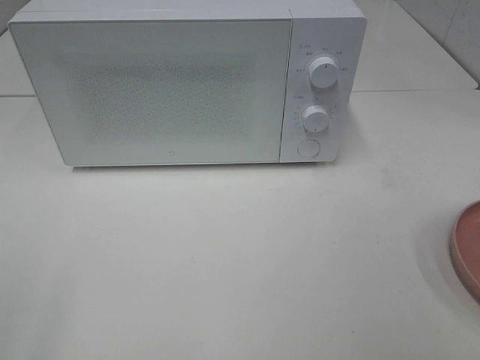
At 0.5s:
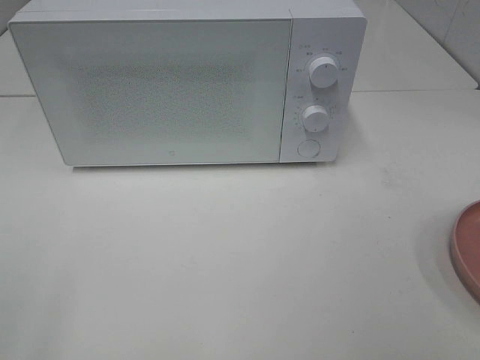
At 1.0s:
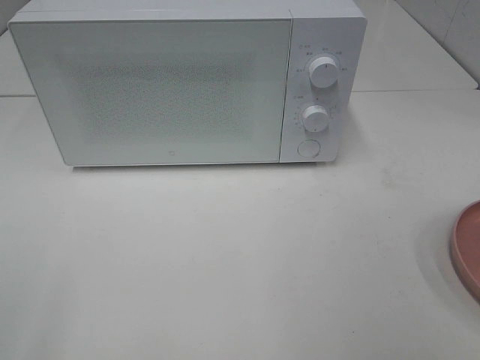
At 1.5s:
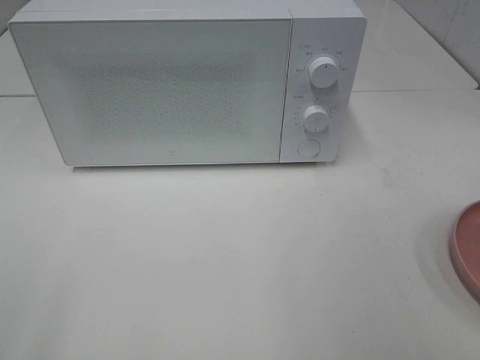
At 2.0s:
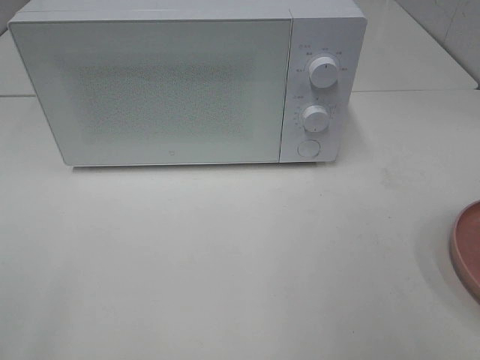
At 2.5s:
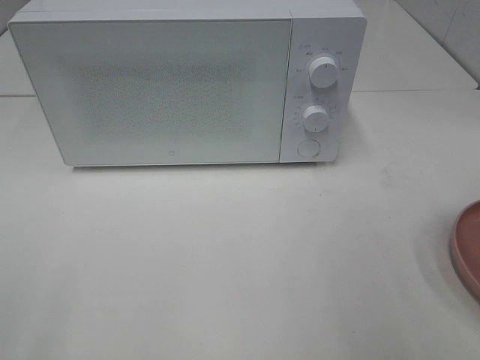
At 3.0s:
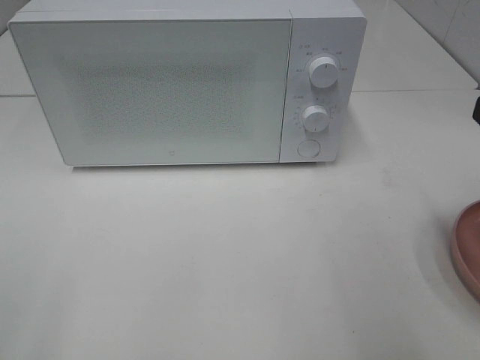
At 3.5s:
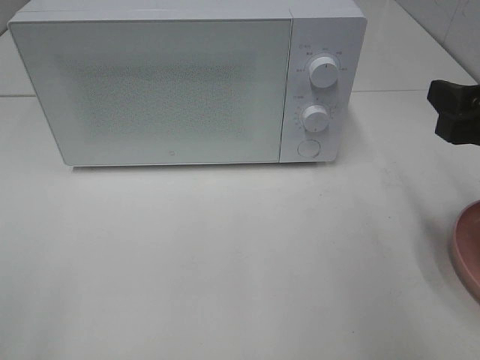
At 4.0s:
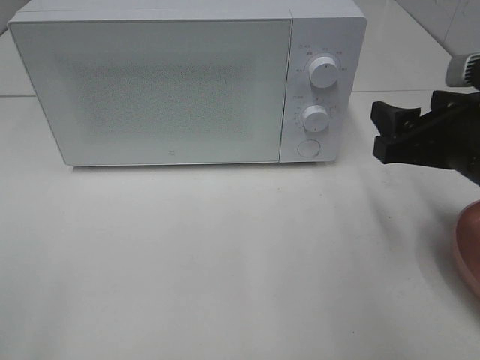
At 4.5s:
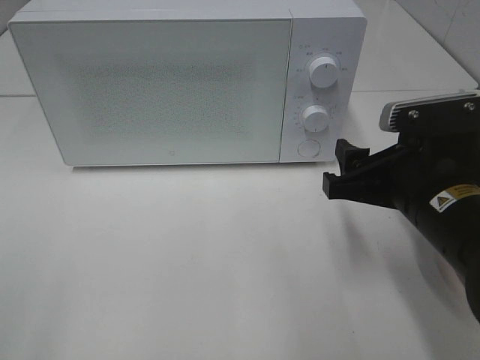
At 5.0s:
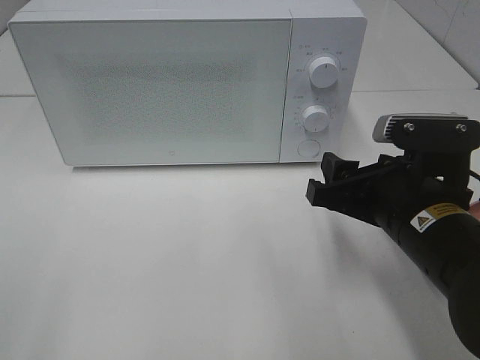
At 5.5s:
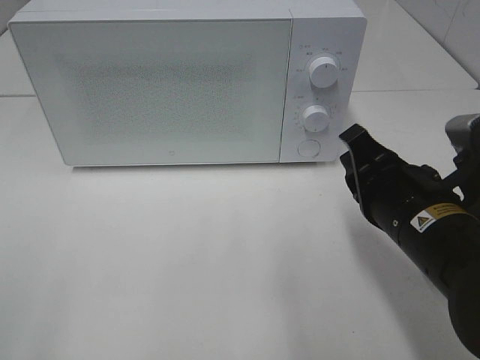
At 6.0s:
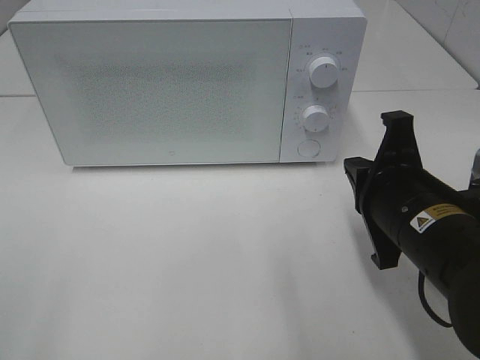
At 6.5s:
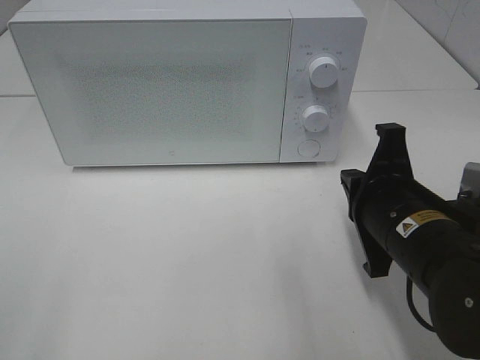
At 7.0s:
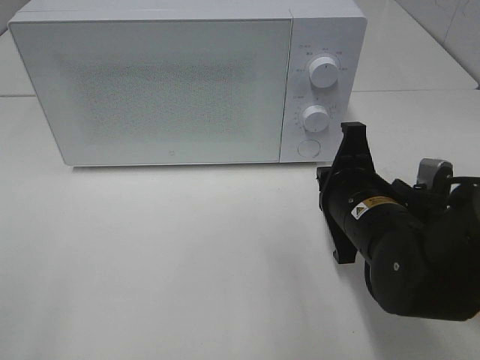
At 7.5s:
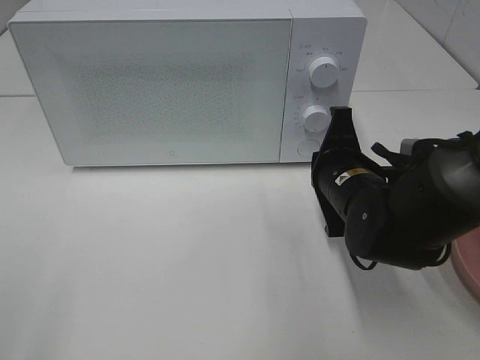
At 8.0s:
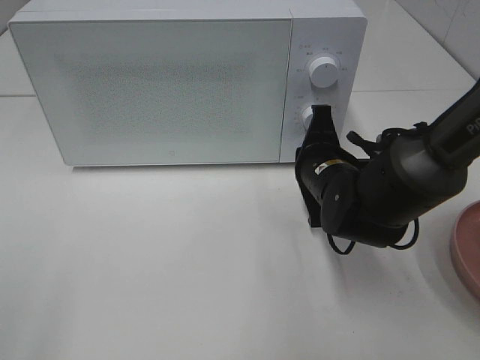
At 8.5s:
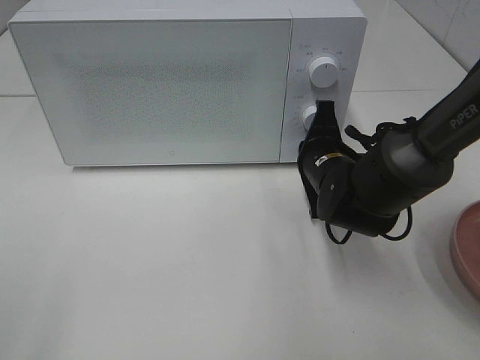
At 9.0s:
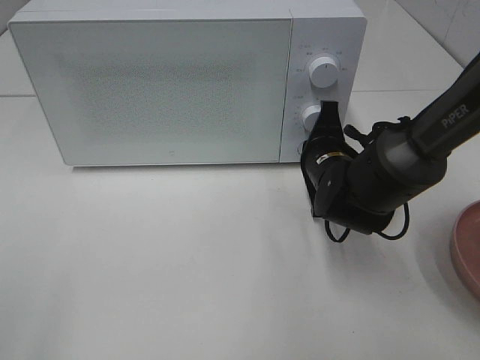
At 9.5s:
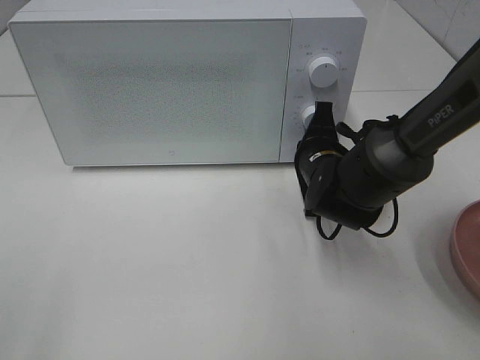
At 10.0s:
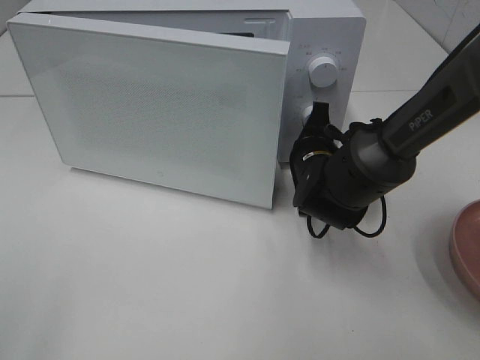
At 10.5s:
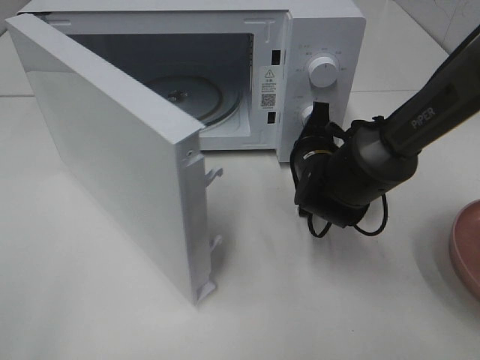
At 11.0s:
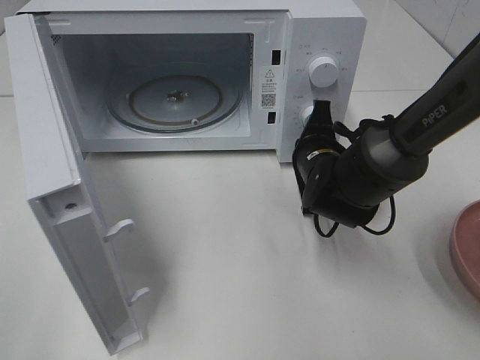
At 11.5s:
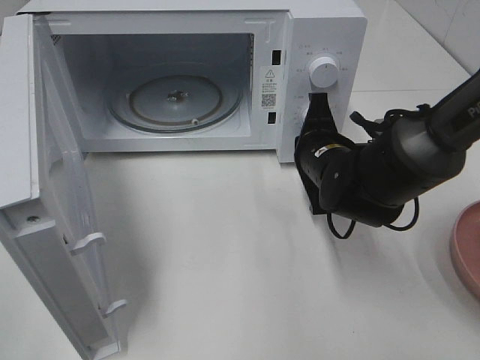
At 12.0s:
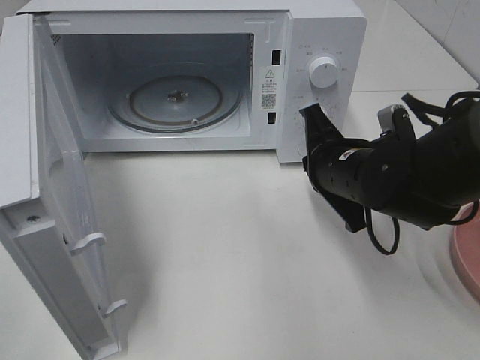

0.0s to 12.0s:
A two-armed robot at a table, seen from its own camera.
Task of the whole recording: Heat the burger.
Step, 0.0s to 11.0s: Right hand: press the switch.
2.0s to 4.0s: The right gripper shifts some 20 cm forward and downward.
4.0s to 6.0s: The right gripper is displaced to the left by roughly 5 cm, and closes up.
6.0s to 8.0s: The right gripper is displaced forward and downward by approximately 15 cm.
8.0s to 10.0s: The grippers make only small movements.
10.0s to 12.0s: The right gripper heads backward and upward, covering approximately 10 cm.

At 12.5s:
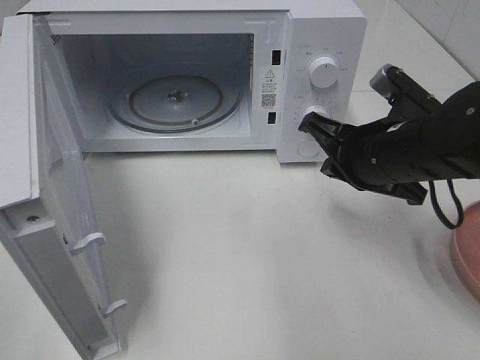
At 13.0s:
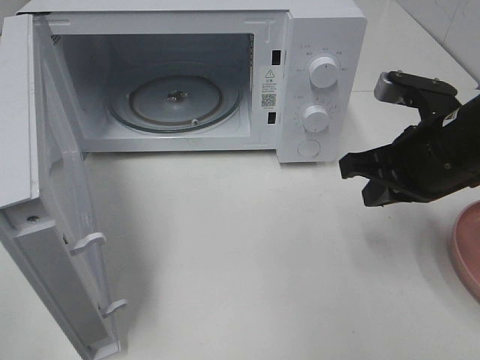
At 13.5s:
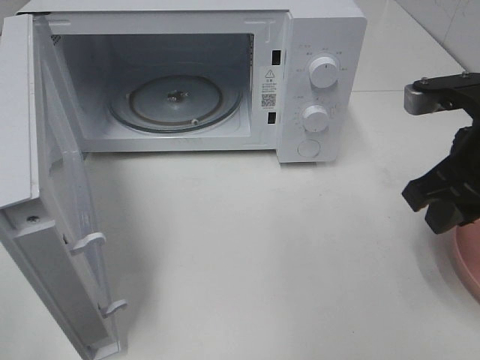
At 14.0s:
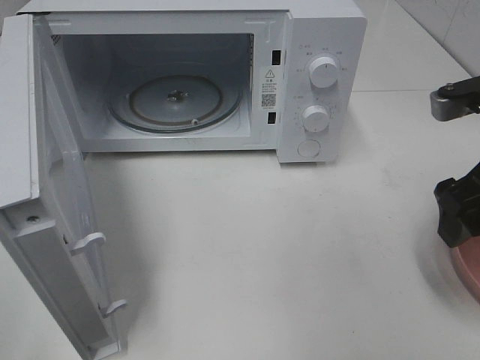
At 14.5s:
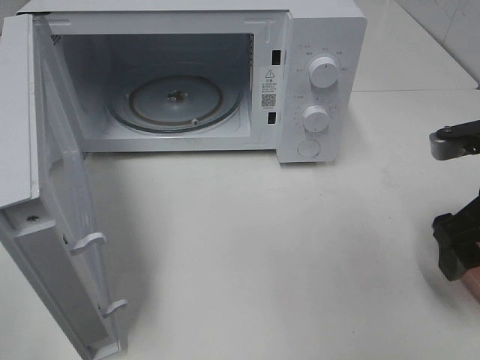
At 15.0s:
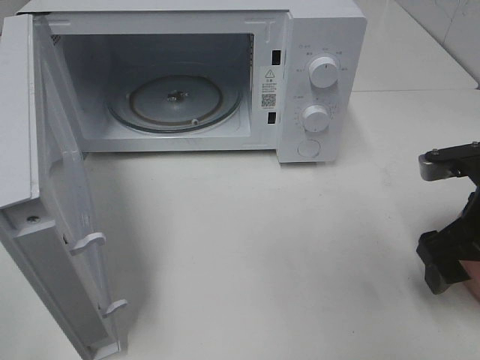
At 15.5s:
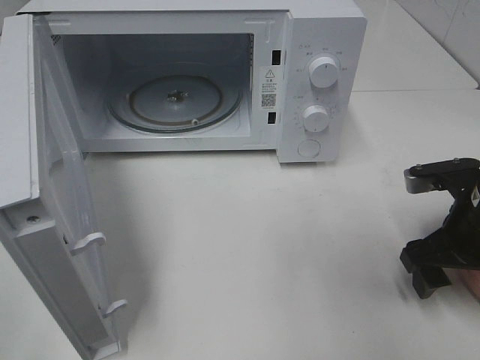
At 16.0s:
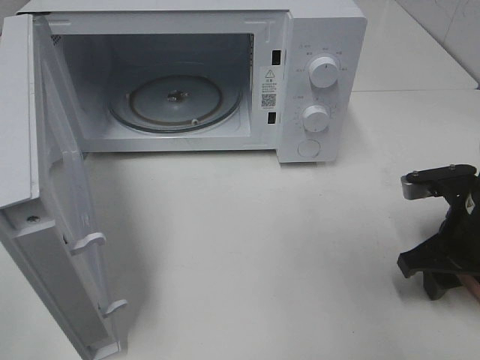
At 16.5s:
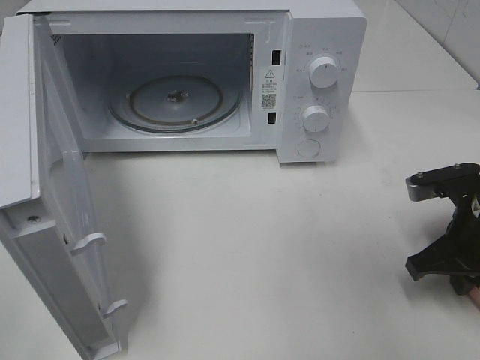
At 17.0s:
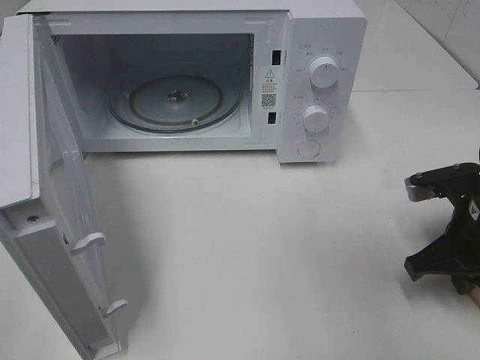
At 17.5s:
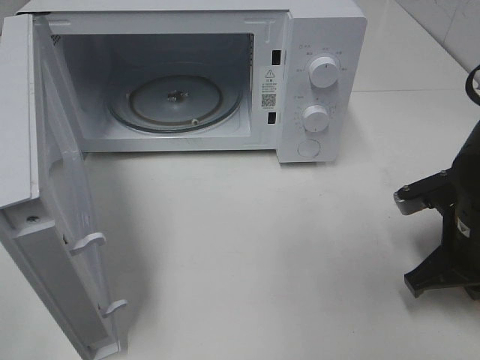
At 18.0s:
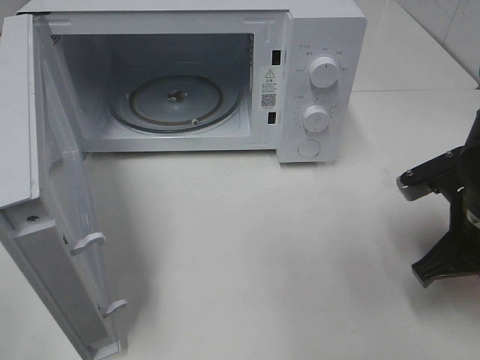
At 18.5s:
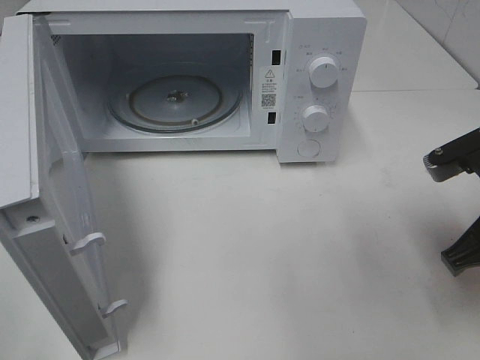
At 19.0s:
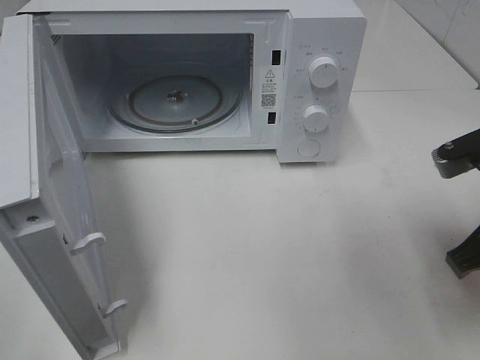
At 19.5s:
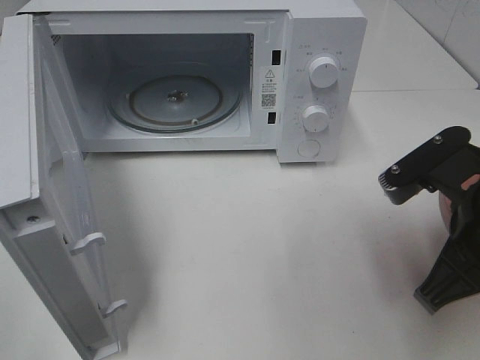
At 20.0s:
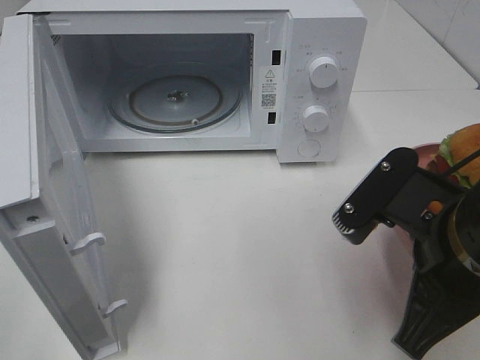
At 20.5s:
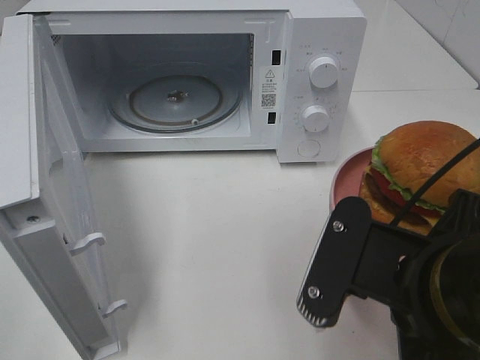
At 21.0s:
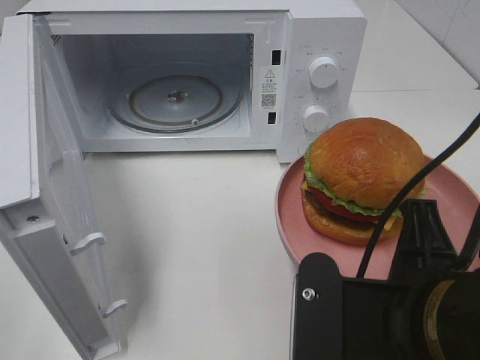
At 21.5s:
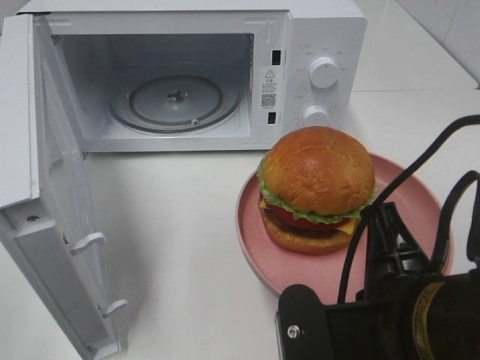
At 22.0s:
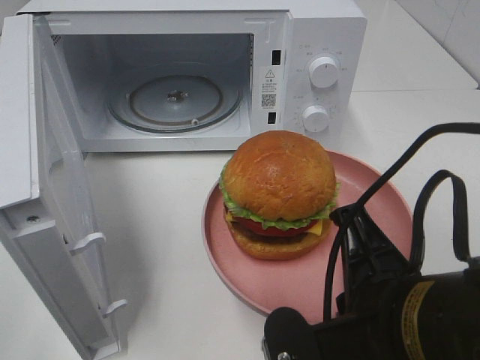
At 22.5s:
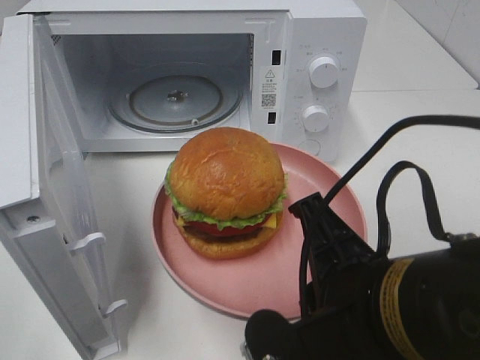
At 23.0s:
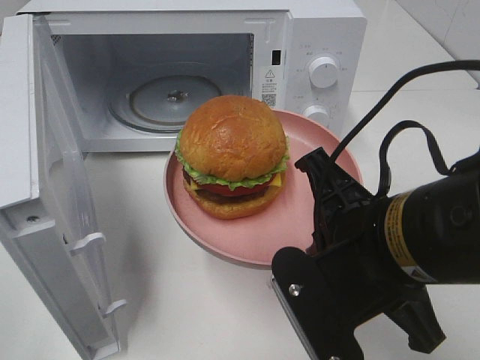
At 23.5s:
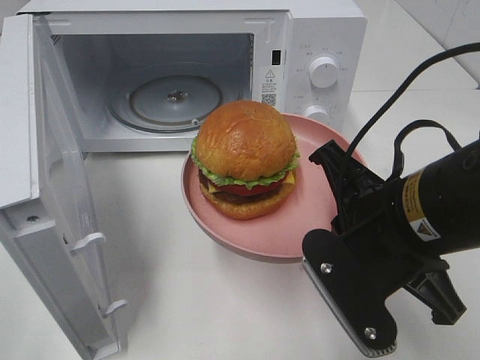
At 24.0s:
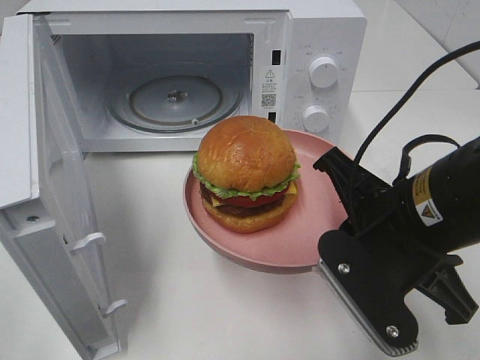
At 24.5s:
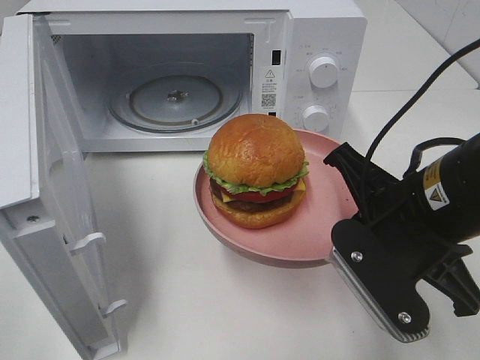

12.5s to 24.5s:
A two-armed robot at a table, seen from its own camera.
Task of the whole recording: Heat the burger.
Step, 12.5s to 16.0s: Right hand: grab the plate with the hamburger.
12.5s to 14.5s: The right gripper goes some 10 cm to the right and backward, and opens its fingers.
14.5s to 16.5s: The right gripper travels downward by some 10 cm, and closes its fingers.
16.5s to 18.5s: The right gripper is displaced upward by about 5 cm.
18.5s to 20.5s: The right gripper shifts some 15 cm to the left and backward.
22.5s to 24.5s: The right gripper heads forward and to the right, covering some 10 cm.

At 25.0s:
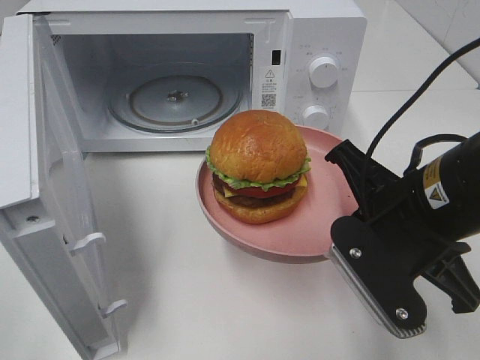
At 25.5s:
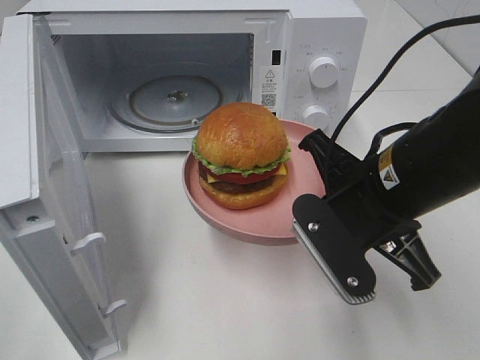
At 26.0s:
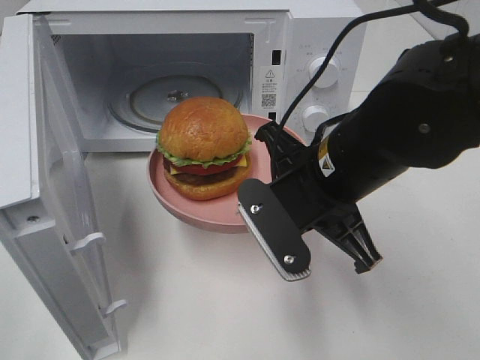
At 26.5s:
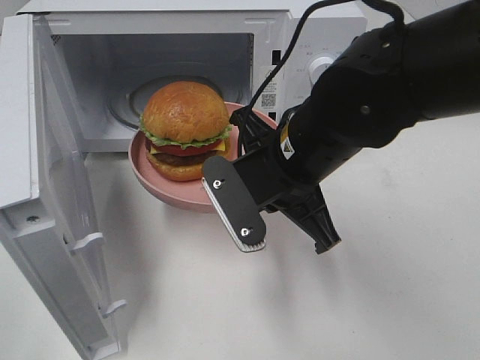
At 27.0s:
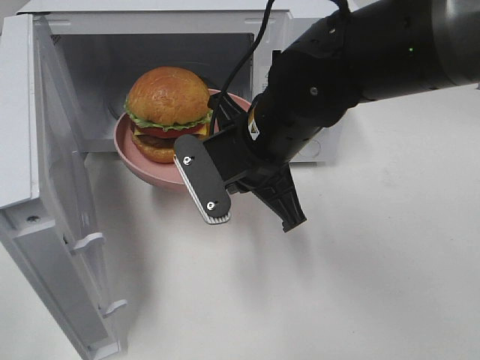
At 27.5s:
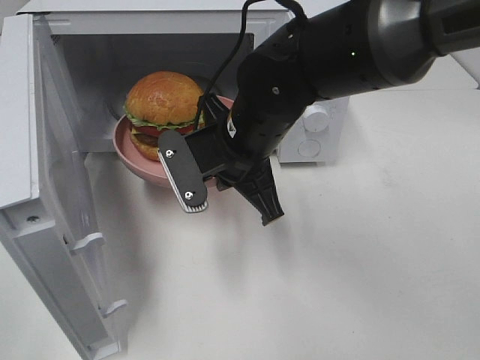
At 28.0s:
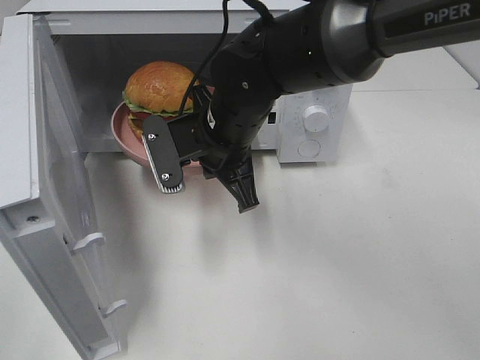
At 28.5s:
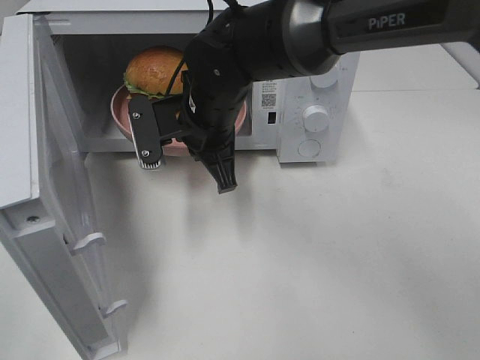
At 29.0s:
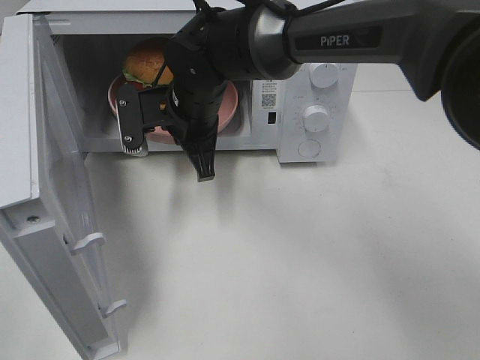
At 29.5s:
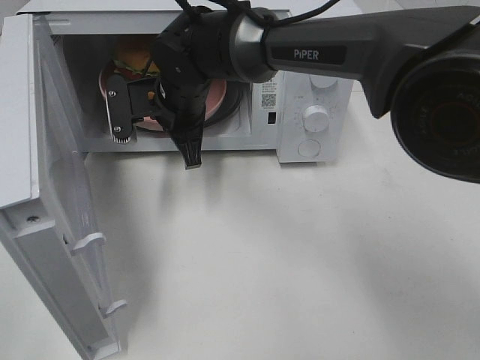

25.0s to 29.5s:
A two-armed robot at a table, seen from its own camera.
Task of the whole recording: Heat the burger.
25.0s to 27.0s: The right gripper goes approximately 15 cm to the left and forward.
27.0s to 29.5s: The right gripper heads forward and to the left, covering roughly 15 cm.
